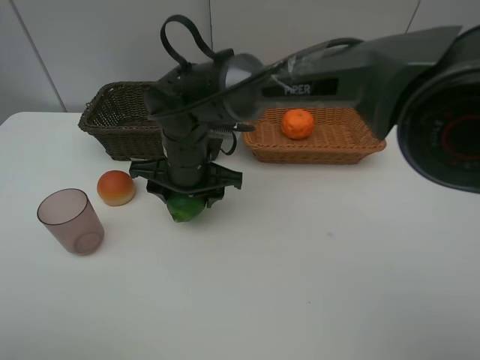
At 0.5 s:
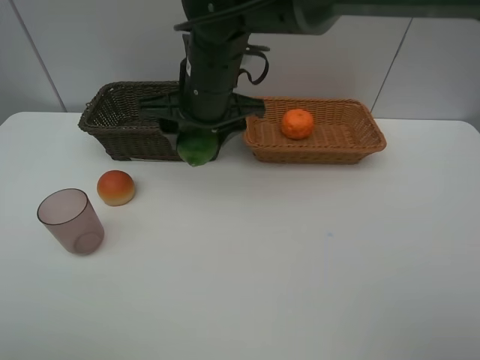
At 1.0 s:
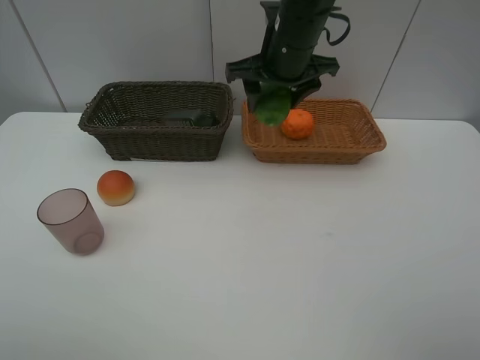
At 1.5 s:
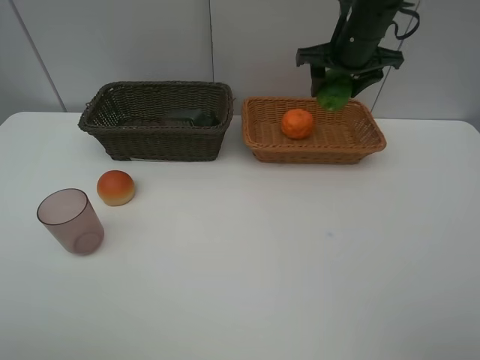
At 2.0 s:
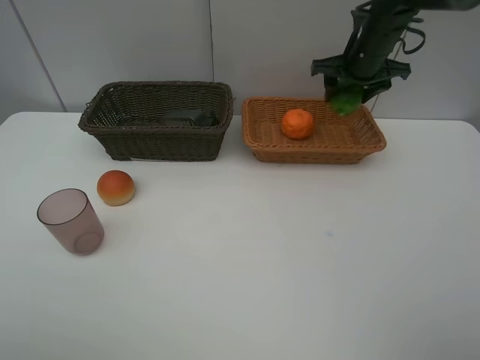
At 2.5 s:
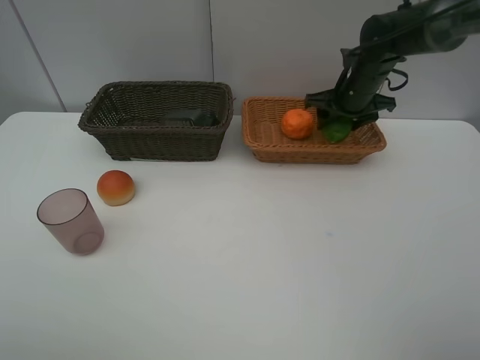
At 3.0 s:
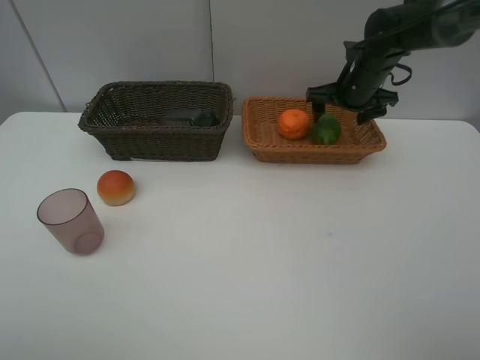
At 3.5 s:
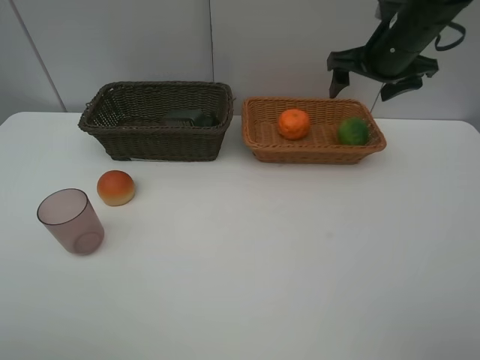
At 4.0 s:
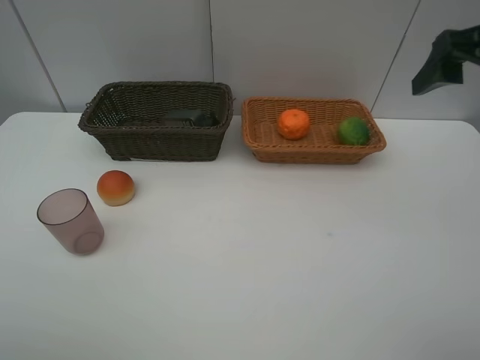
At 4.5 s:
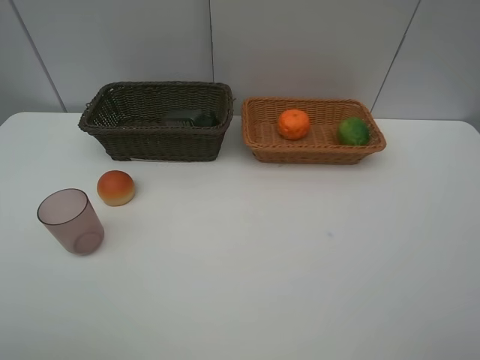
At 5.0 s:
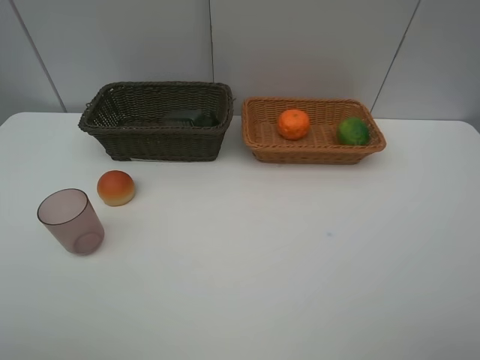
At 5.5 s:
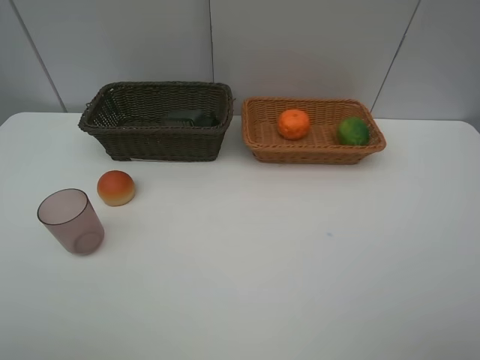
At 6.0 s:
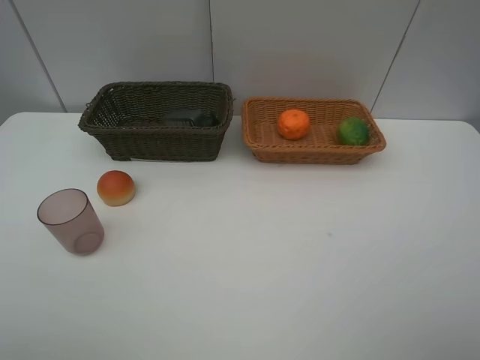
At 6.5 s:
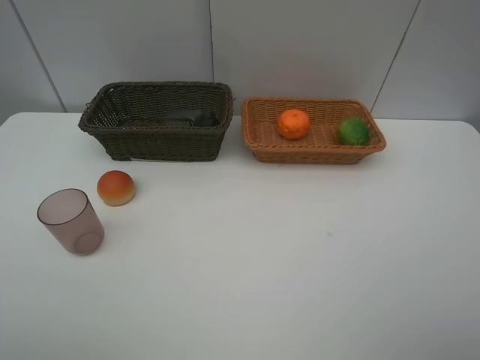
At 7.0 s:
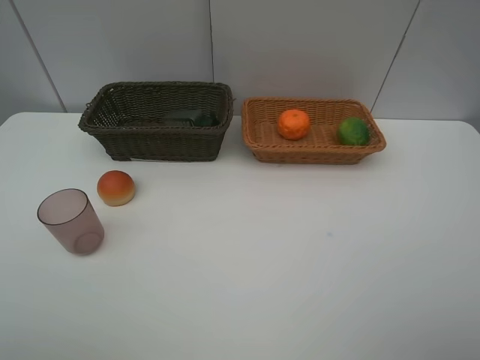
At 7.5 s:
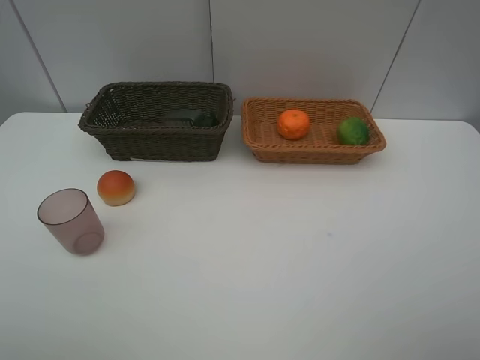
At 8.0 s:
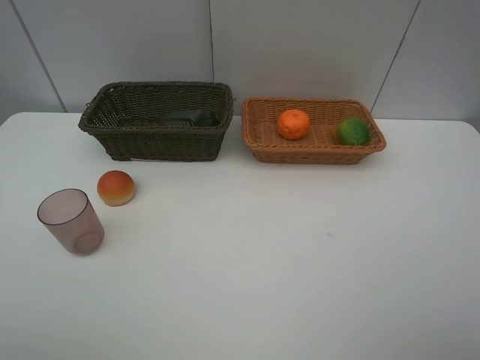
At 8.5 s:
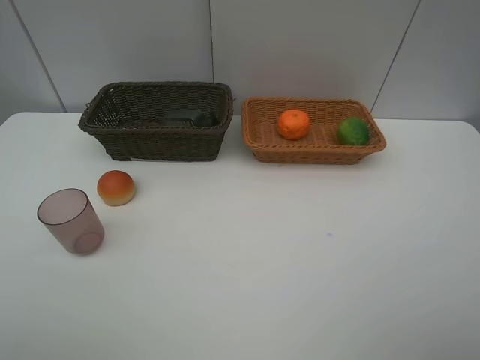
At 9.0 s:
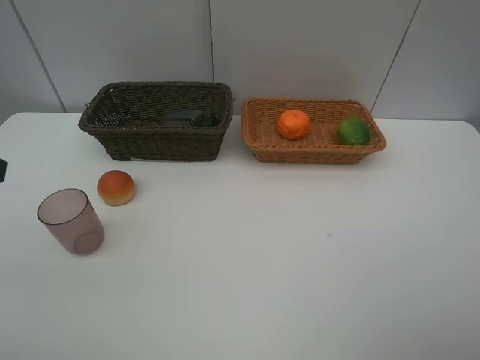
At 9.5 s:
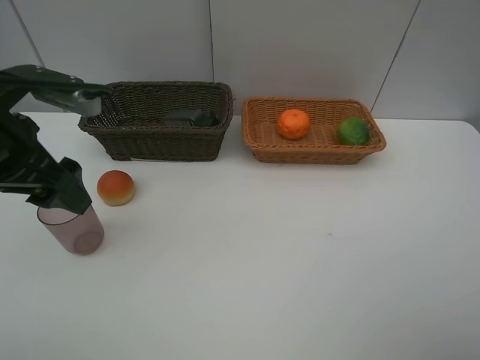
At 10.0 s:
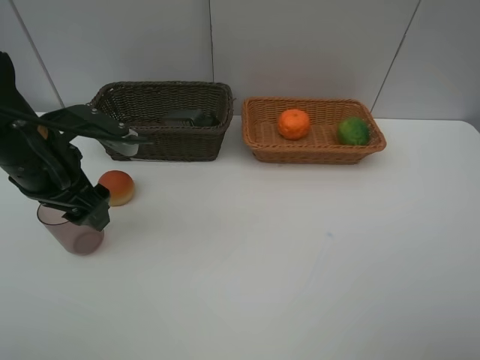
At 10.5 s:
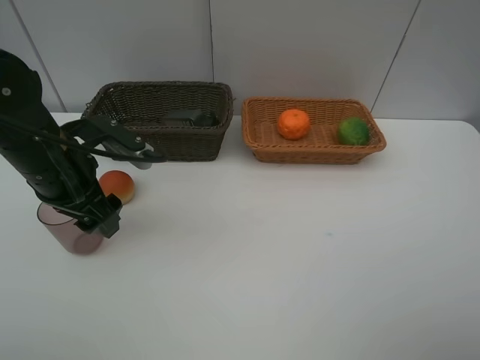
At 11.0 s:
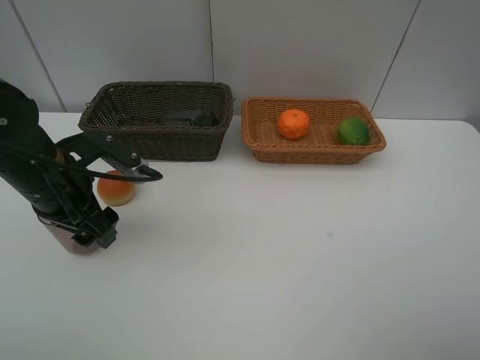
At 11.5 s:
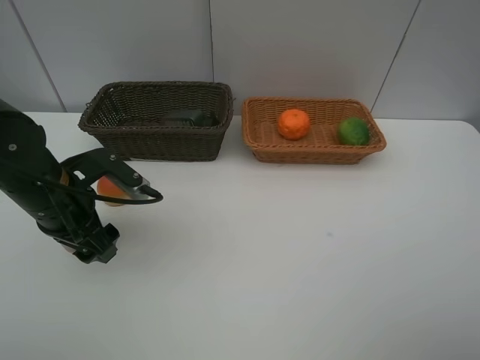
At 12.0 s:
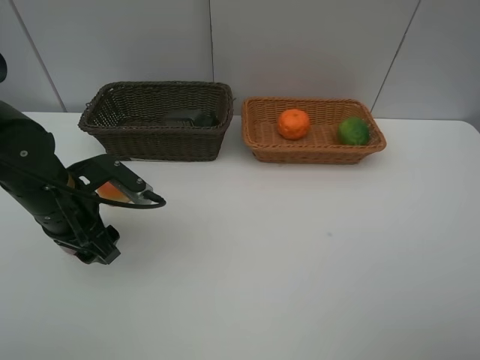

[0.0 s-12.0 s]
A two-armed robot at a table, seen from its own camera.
Task of the whole recording: place multiple objects separately in different baskets.
0.0 to 2.0 s: The right gripper shifts about 30 cm to the right and forward.
2.0 to 4.0 s: The right gripper heads backward and upward, covering about 25 cm, and opens.
4.0 to 6.0 s: The right gripper goes some 25 cm backward.
8.0 to 10.0 s: The left gripper heads forward, covering approximately 25 cm.
10.0 to 12.0 s: The left gripper shifts some 5 cm downward.

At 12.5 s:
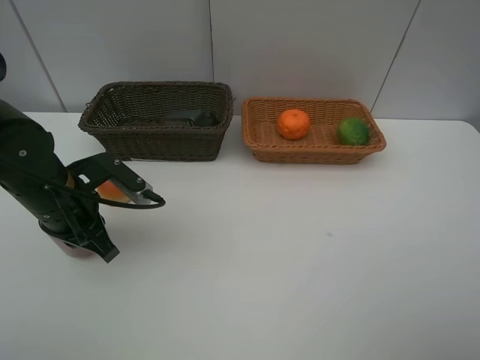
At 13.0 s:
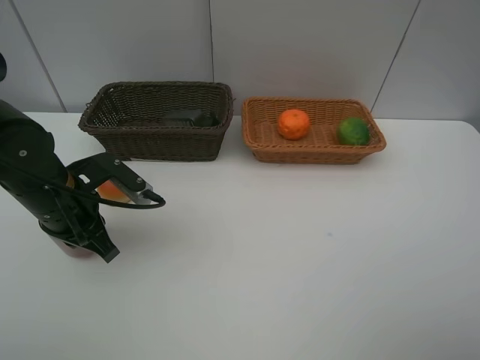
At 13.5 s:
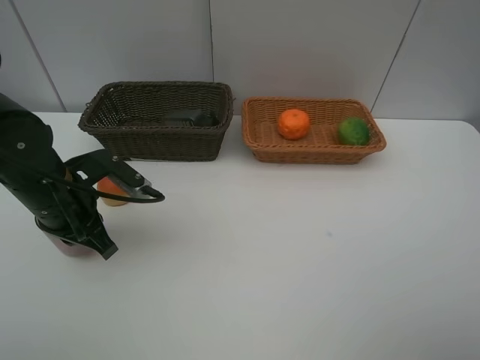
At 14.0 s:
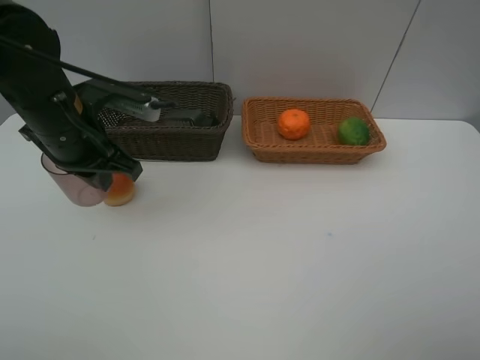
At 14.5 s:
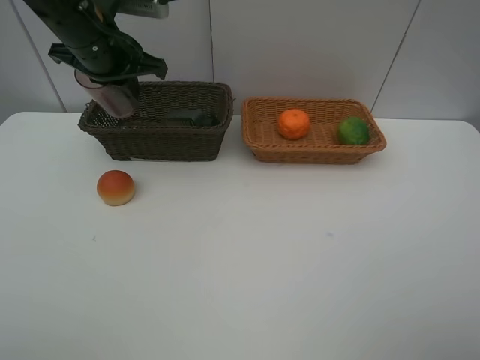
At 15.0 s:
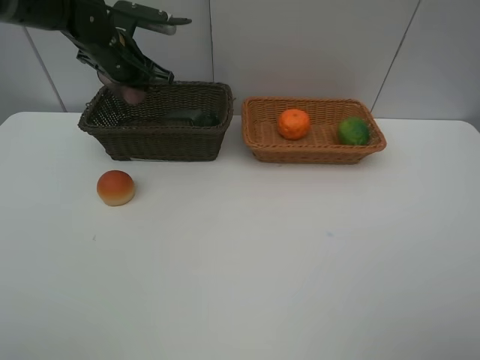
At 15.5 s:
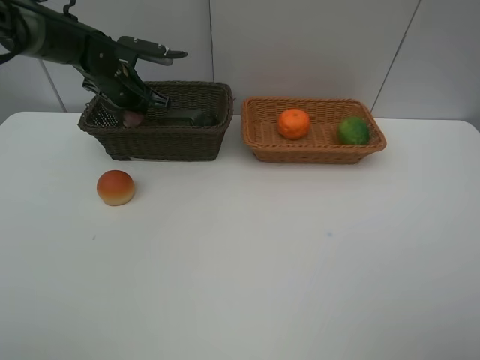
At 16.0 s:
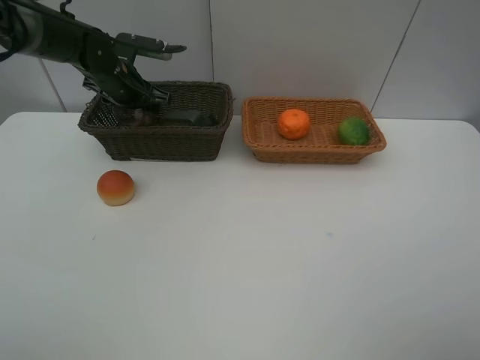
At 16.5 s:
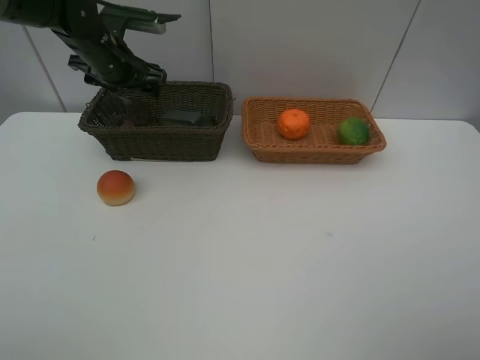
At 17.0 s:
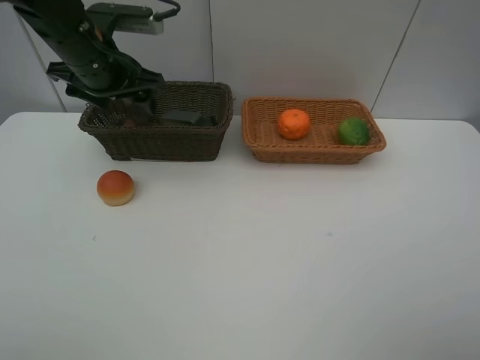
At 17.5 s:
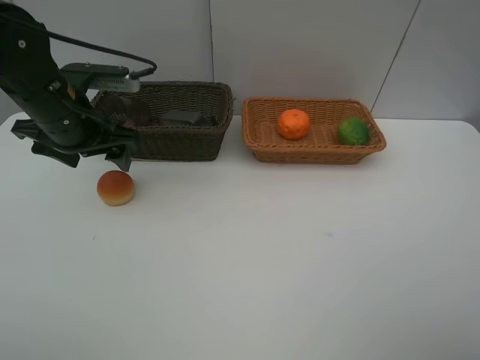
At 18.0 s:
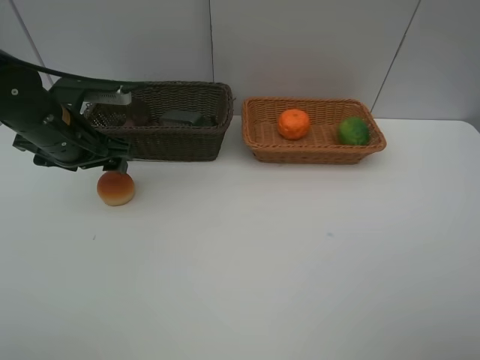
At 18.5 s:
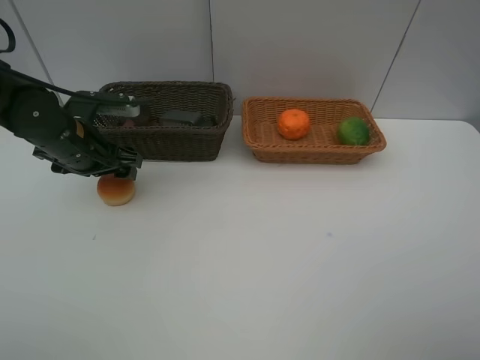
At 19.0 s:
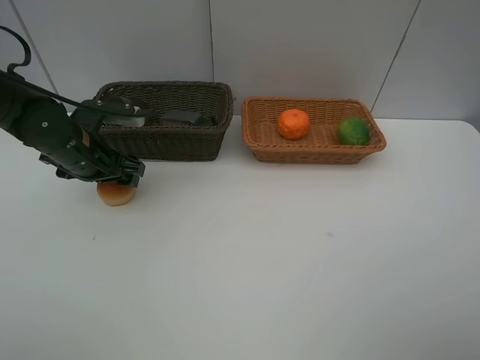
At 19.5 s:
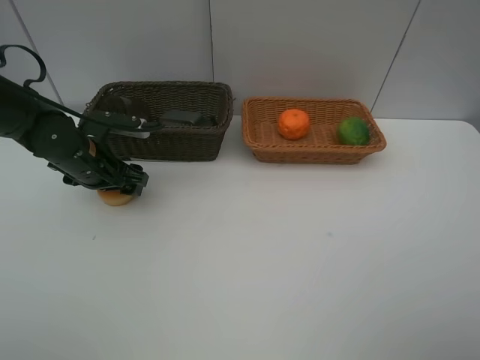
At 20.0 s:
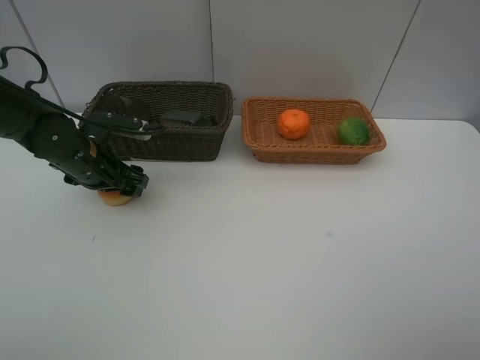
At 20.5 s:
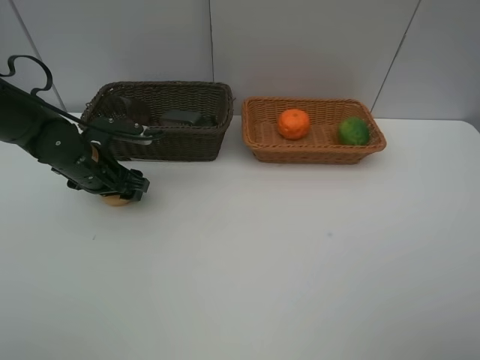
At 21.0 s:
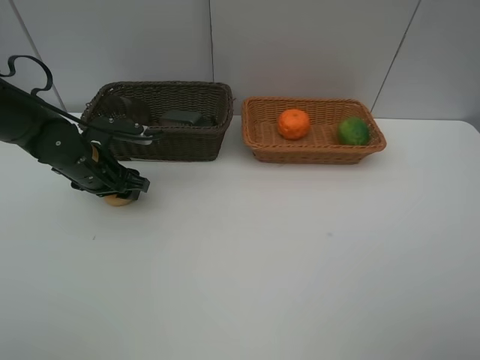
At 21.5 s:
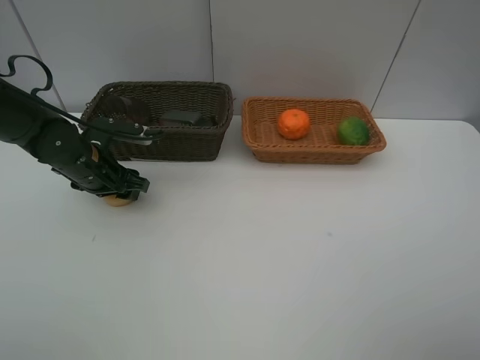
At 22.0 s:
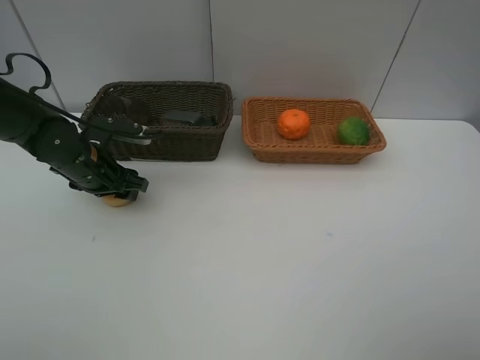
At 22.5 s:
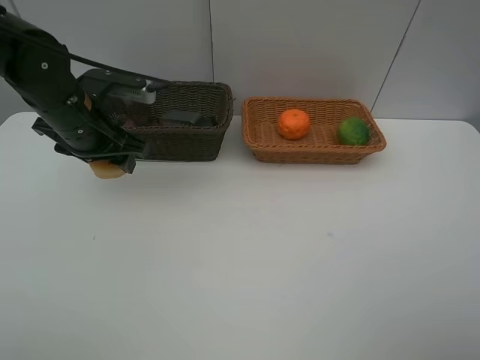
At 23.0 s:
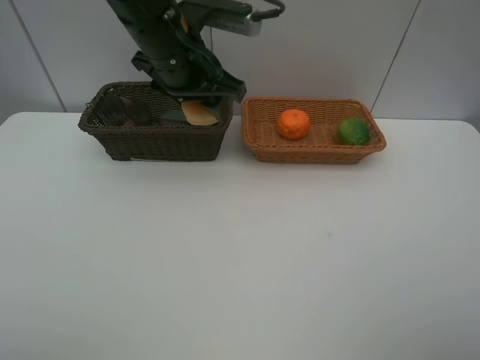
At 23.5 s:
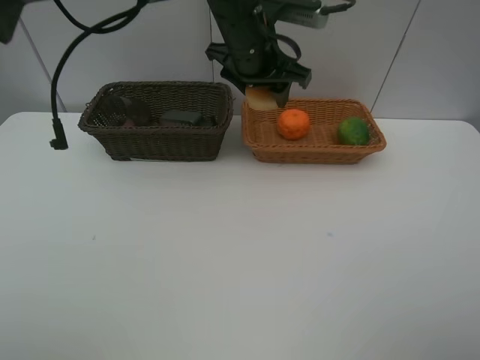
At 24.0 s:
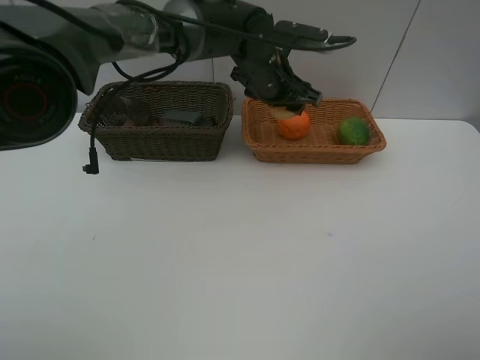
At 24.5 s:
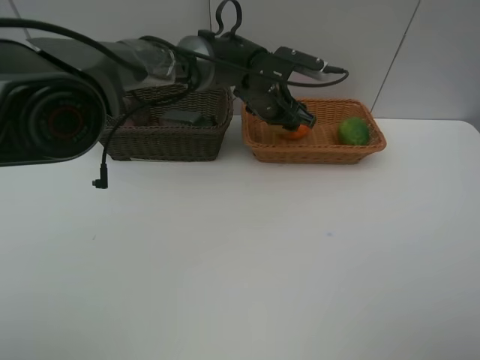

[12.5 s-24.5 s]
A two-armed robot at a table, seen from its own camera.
Task of the whole recording: place multiple objects separately in different baskets.
12.5 to 14.5 s: The left gripper shifts roughly 20 cm forward and upward.
14.5 to 16.5 s: The left gripper is displaced forward by approximately 5 cm, and opens up.
16.5 to 18.5 s: The left gripper travels backward and downward by about 15 cm.
18.5 to 20.5 s: The grippers stay close to where they were, moving slightly.
20.5 to 22.5 s: The left gripper heads upward, covering roughly 10 cm.
22.5 to 24.5 s: The left gripper heads to the right and forward, covering about 25 cm.

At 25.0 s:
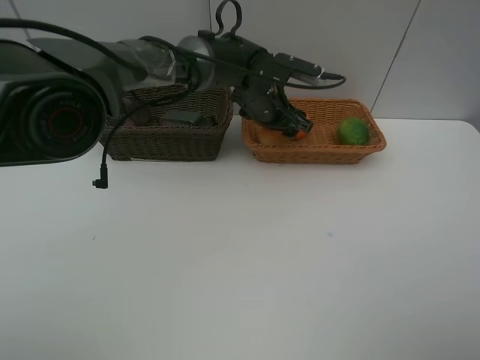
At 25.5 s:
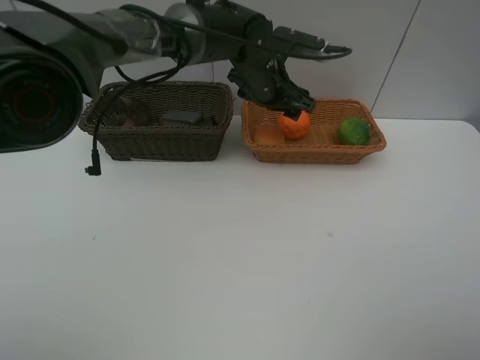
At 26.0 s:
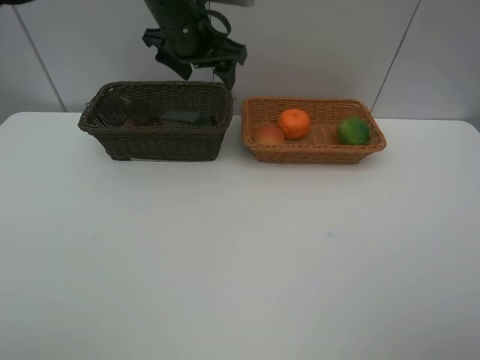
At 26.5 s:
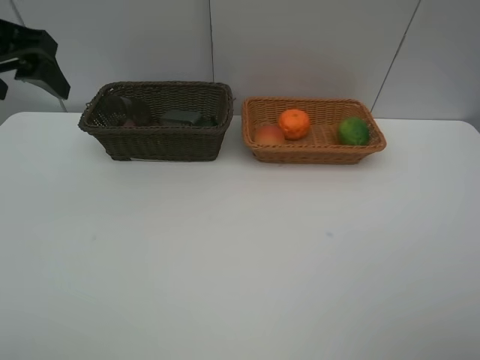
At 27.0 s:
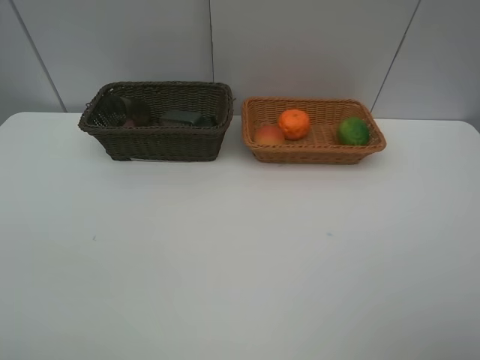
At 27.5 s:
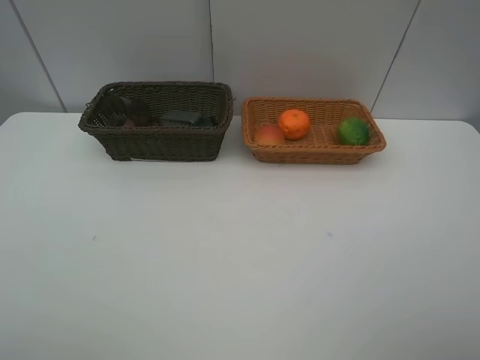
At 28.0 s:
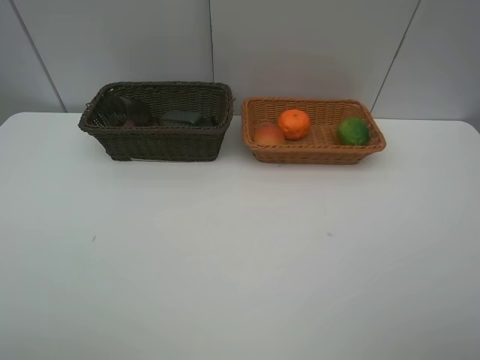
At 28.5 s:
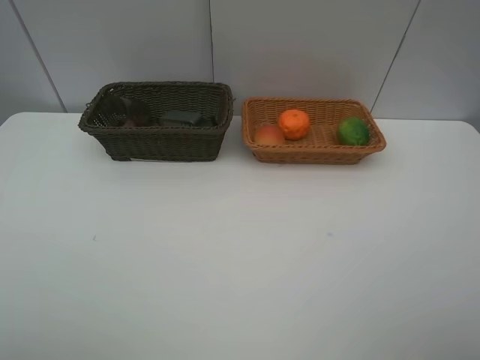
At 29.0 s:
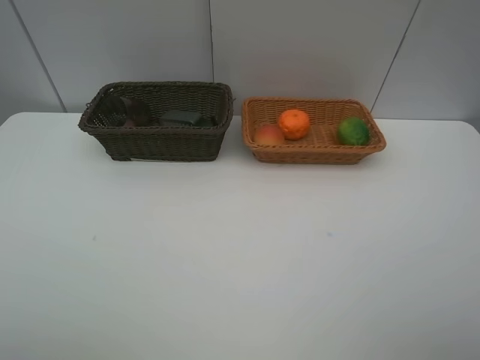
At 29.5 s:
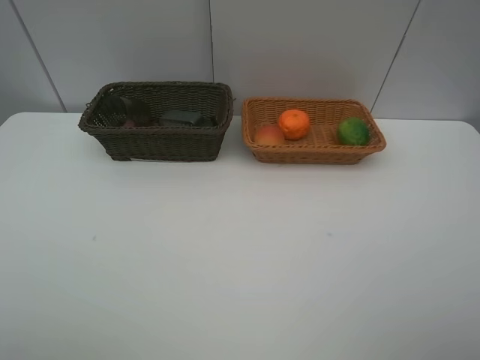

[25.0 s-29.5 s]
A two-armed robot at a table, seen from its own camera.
Task of the whole recording: place multiple objects separately in different baskets.
25.0 to 27.0 s: The left gripper is displaced to the left, backward and upward by some 50 cm.
